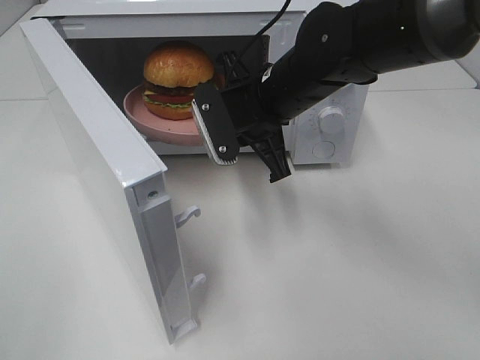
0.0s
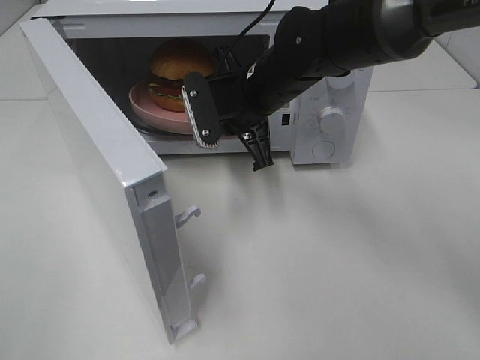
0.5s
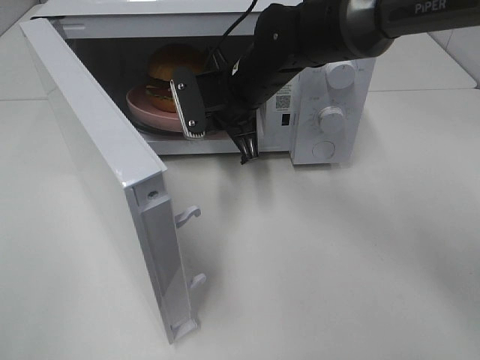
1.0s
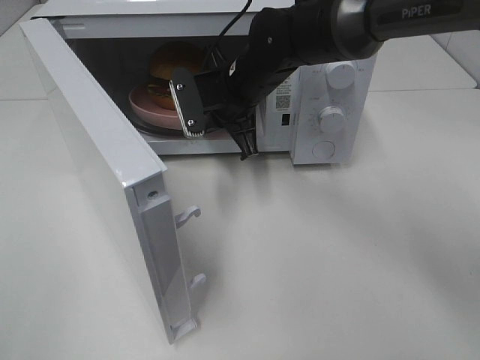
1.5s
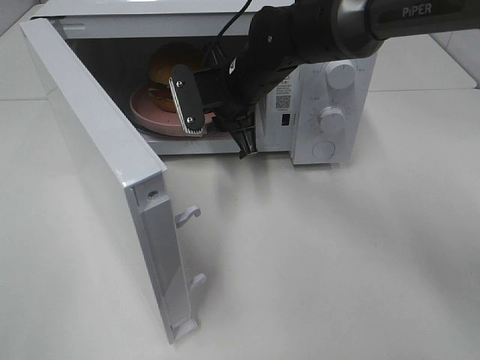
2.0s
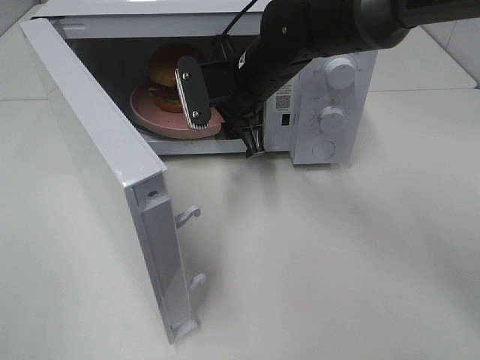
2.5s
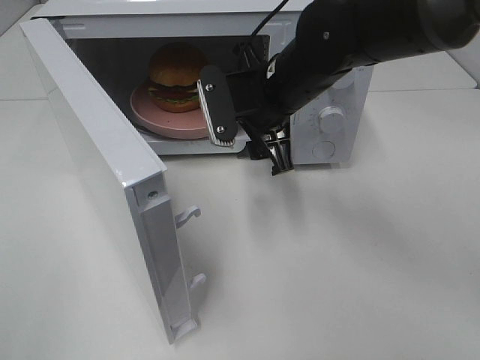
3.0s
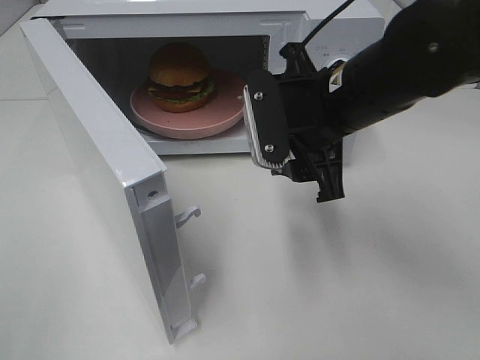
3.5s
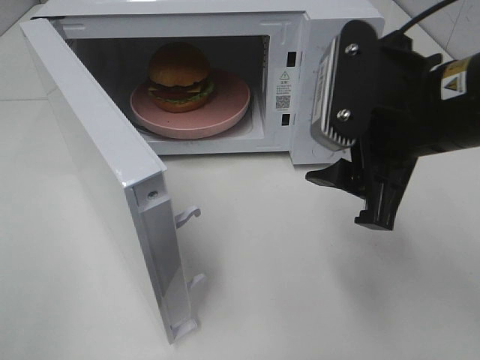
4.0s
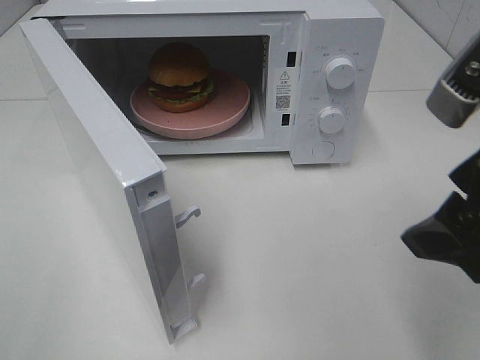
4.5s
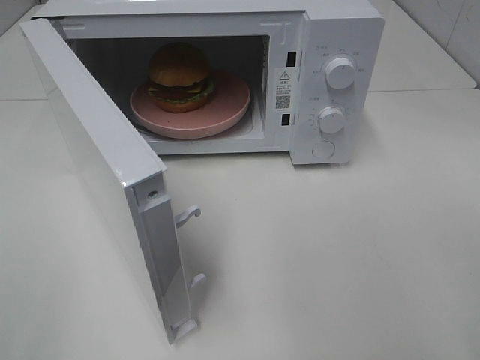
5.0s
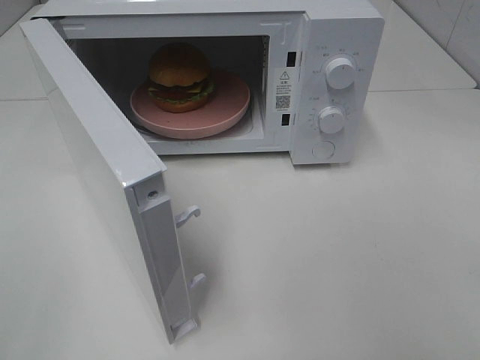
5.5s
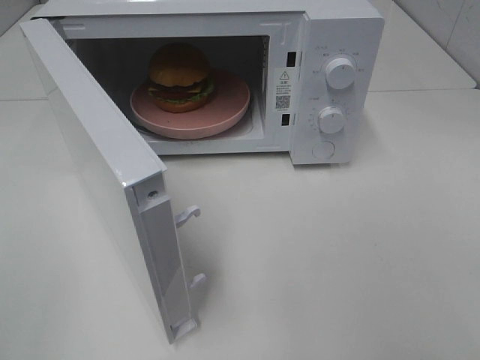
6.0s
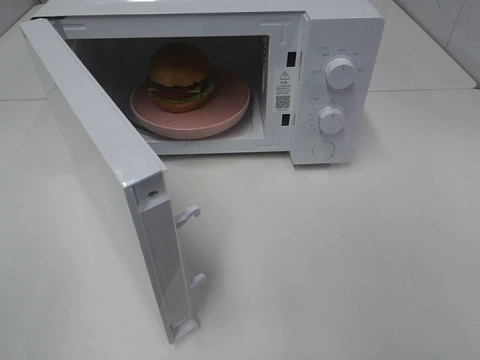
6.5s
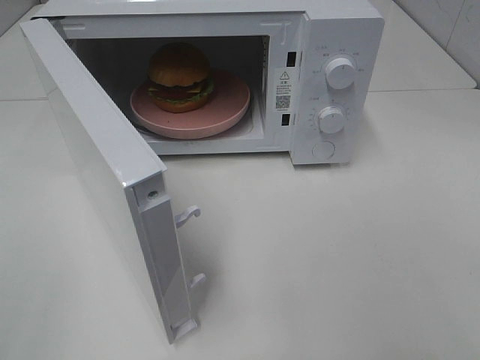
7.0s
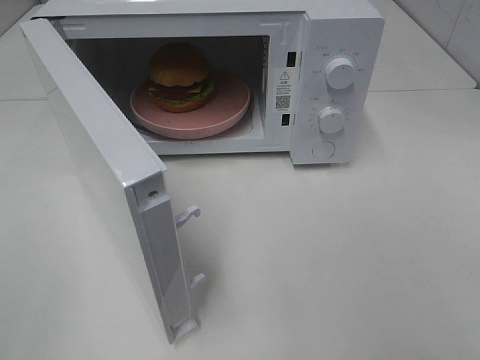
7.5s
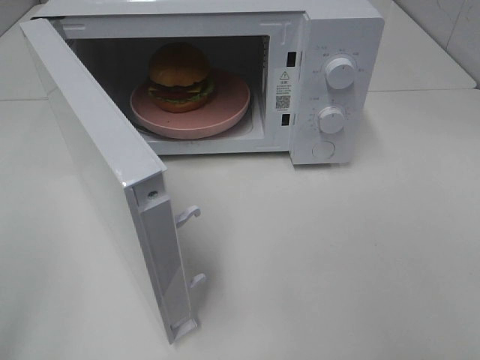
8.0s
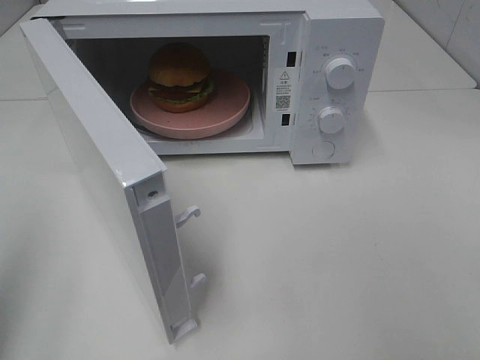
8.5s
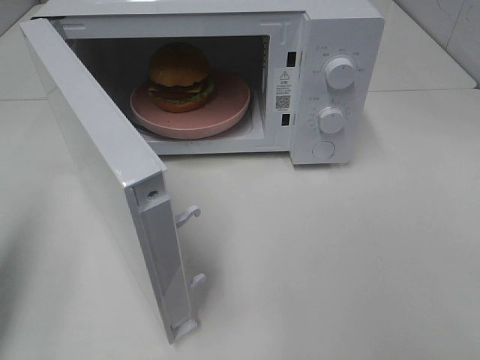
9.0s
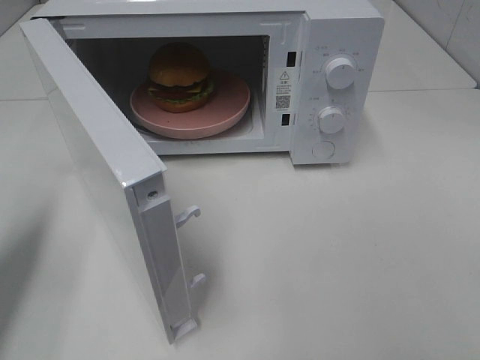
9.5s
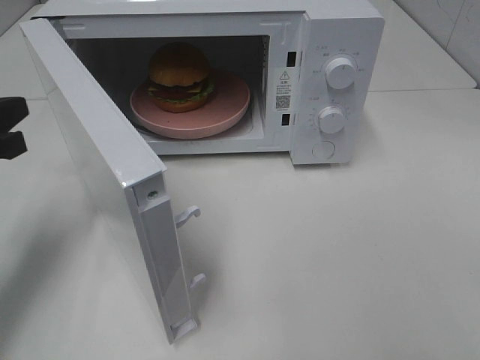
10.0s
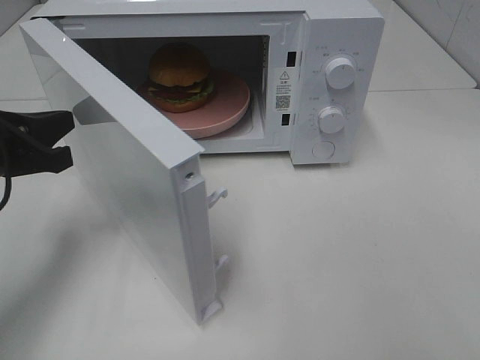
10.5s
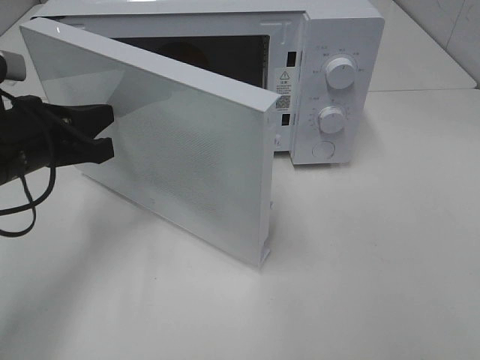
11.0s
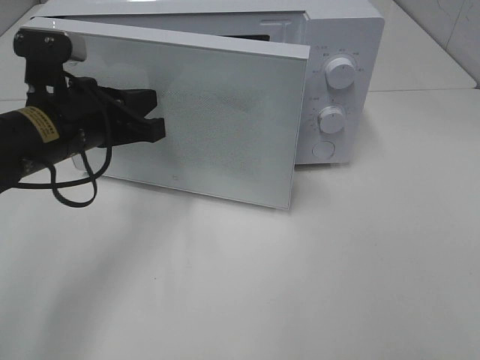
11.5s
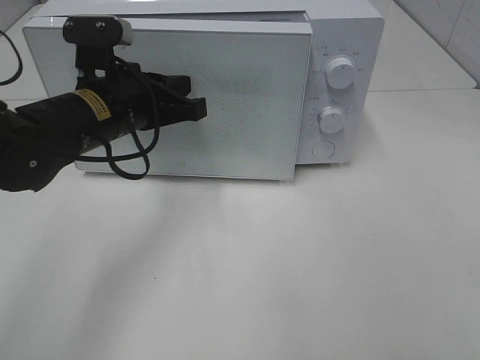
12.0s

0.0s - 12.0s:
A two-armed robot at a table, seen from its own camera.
Task of the whole recording: Heat the burger.
Step, 0.0s - 2.0s: Right hand: place the plate in the microwave.
0.0s - 2.0s: The right gripper moves forward, about 5 cm.
2.0s - 4.0s: The right gripper travels backward, to the right and upward by about 25 cm, and opens up.
4.0s - 6.0s: The right gripper goes some 25 cm backward and to the right.
8.0s - 10.0s: The left gripper moves forward and downward, roughly 25 cm, and closes its fingers.
10.0s - 12.0s: The left gripper goes roughly 15 cm to the right and forward.

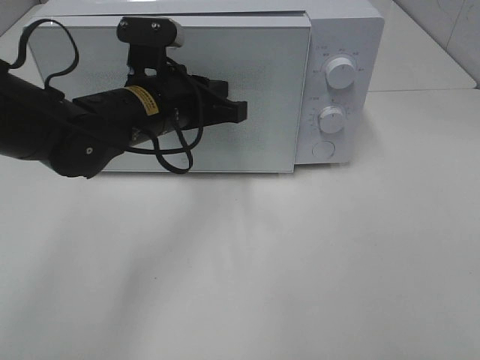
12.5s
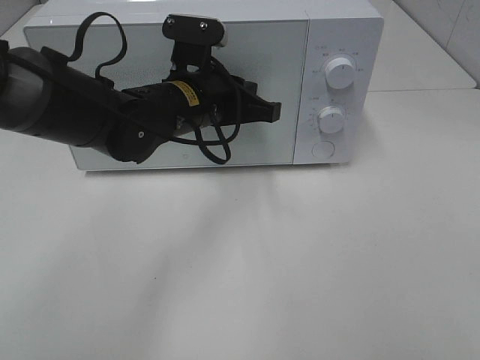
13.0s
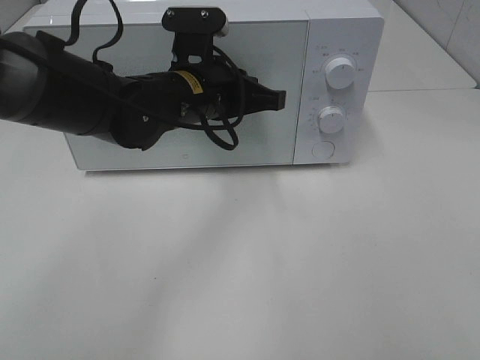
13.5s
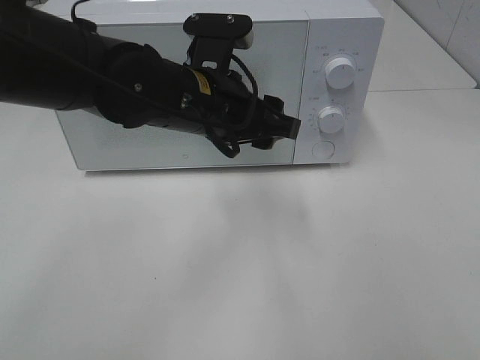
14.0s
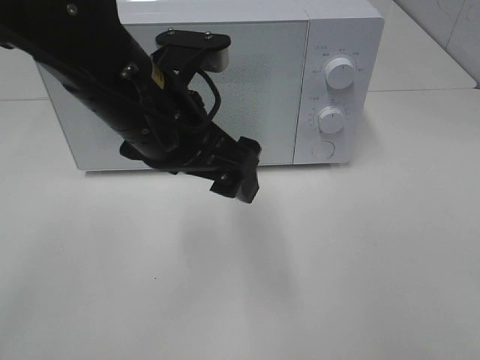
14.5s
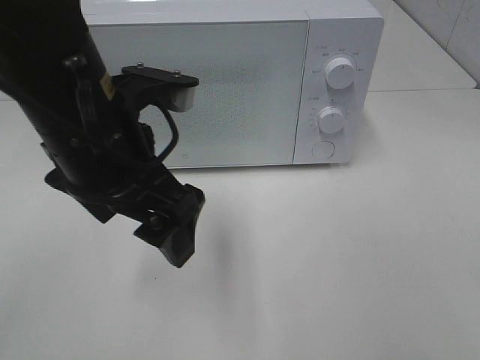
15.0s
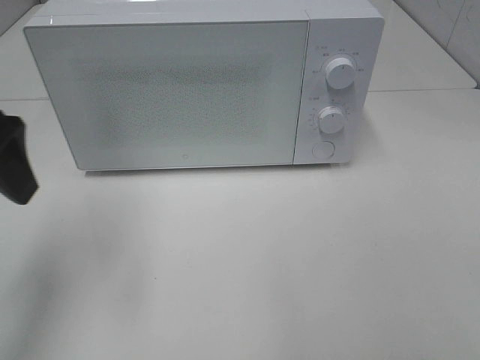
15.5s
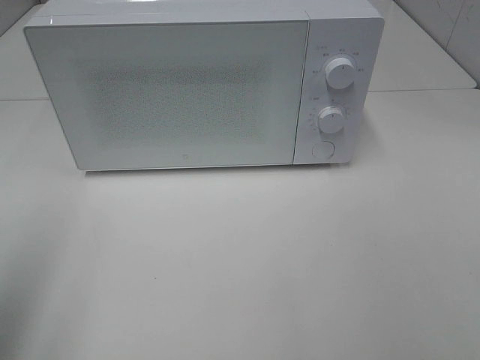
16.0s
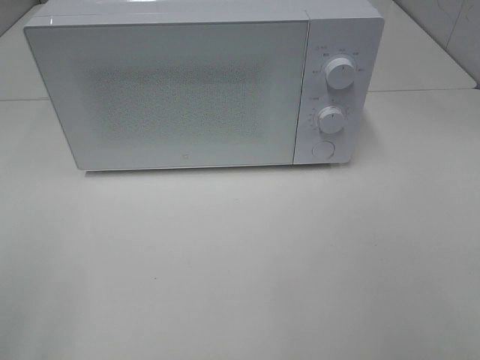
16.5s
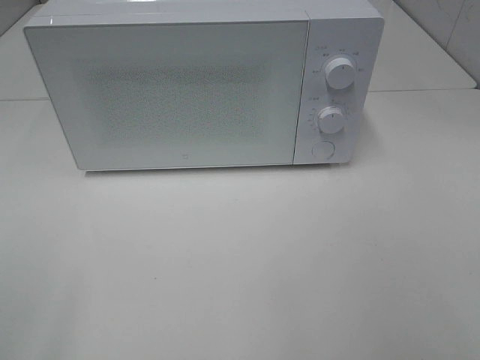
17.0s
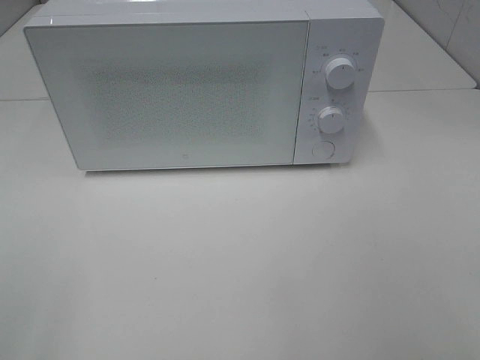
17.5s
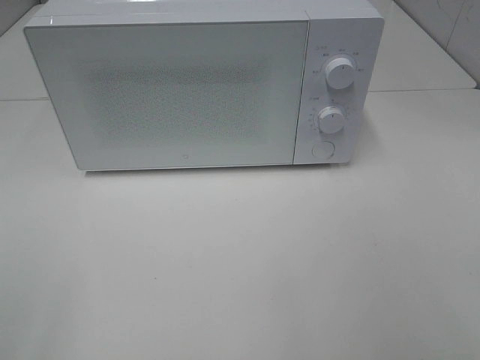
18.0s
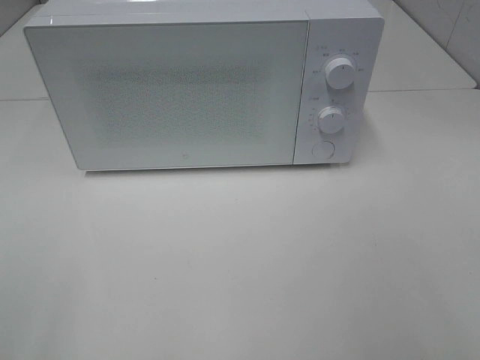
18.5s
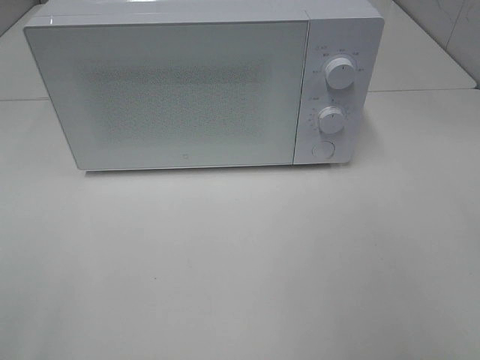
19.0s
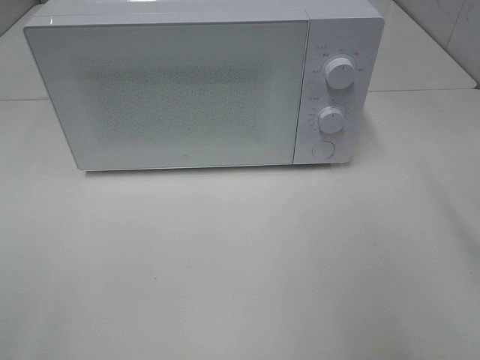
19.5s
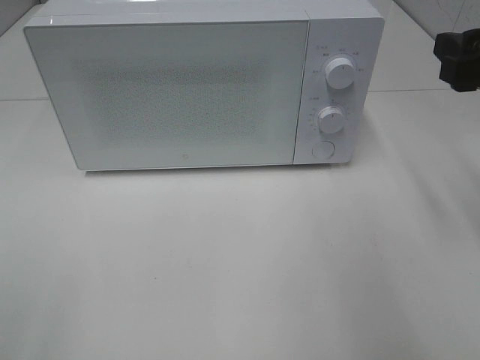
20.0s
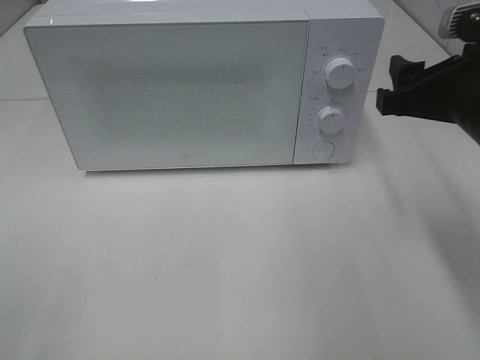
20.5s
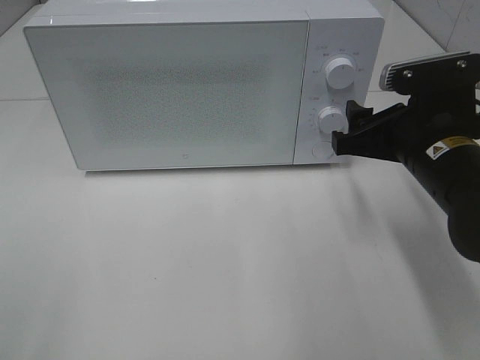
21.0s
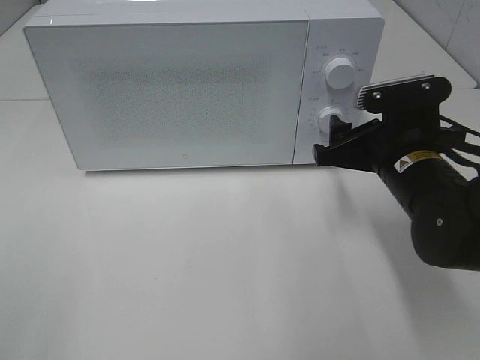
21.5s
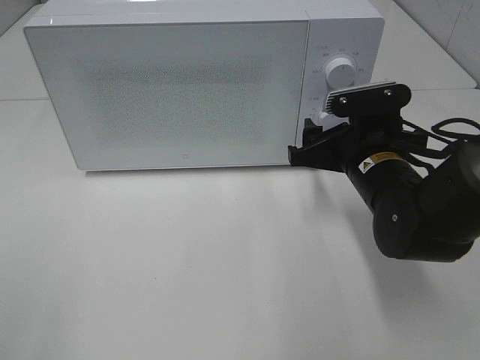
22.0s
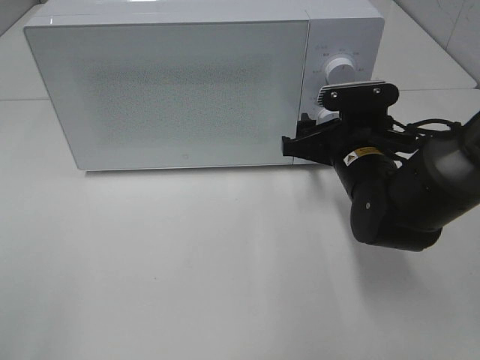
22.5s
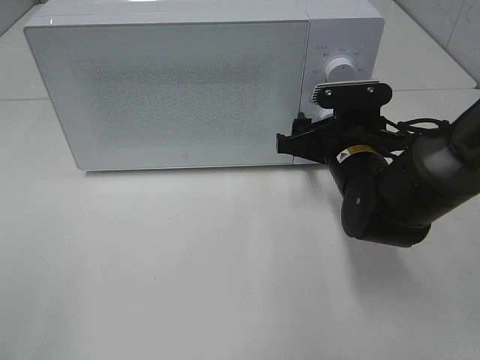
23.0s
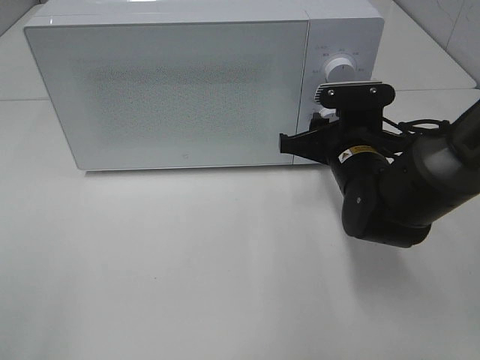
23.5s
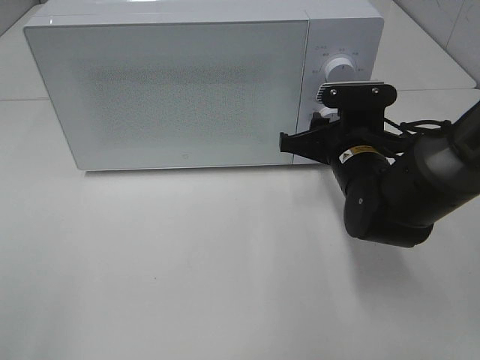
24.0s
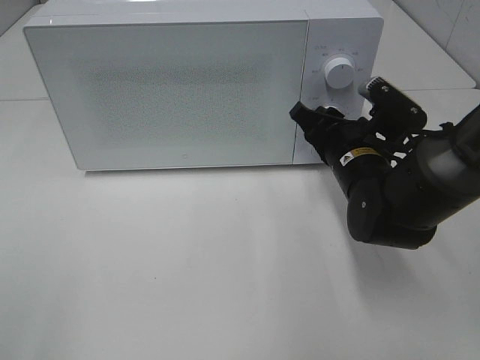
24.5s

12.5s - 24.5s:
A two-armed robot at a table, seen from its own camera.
Task of the whole recording: Heat the burger.
12.5s - 14.5s: The left gripper travels backward and upward by some 10 cm, and opens.
14.5s - 16.5s: The left gripper shifts some 35 cm to the left and backward.
18.5s - 20.5s: The right gripper shifts about 20 cm forward.
20.5s - 22.5s: The right gripper is displaced downward, to the left and forward by some 15 cm.
22.5s - 24.5s: The right gripper closes up.

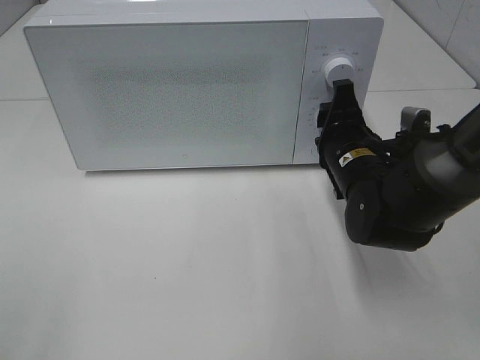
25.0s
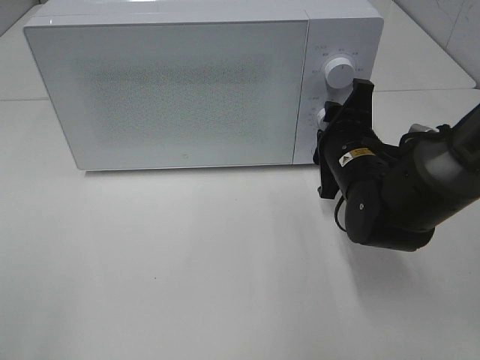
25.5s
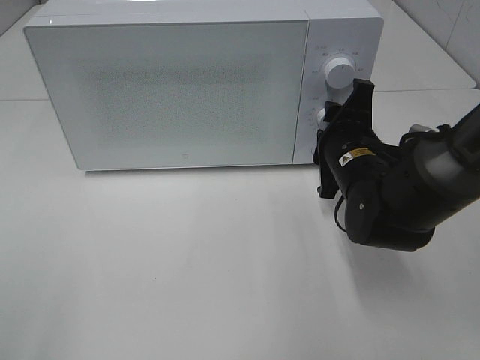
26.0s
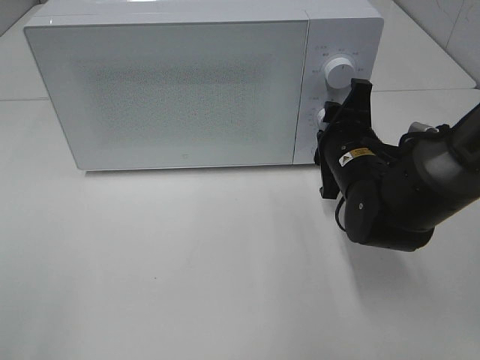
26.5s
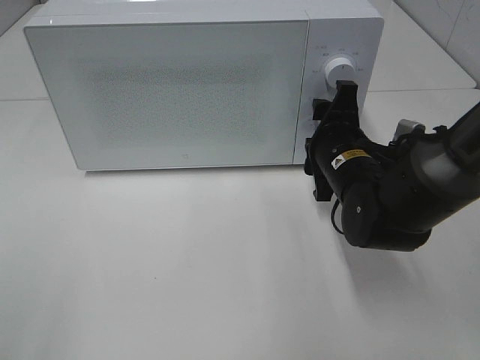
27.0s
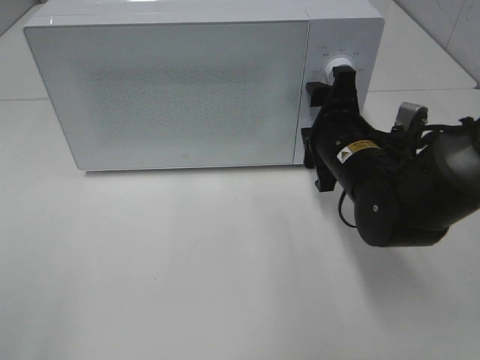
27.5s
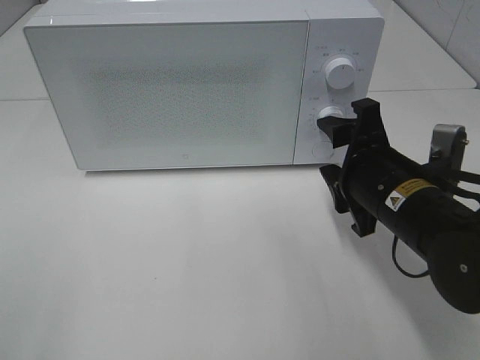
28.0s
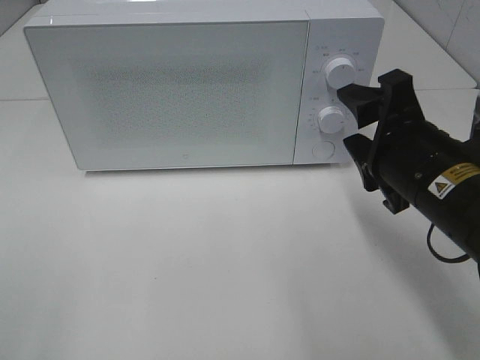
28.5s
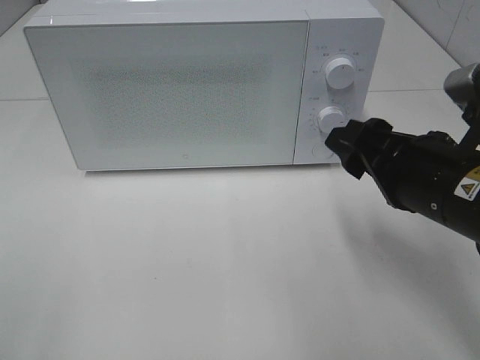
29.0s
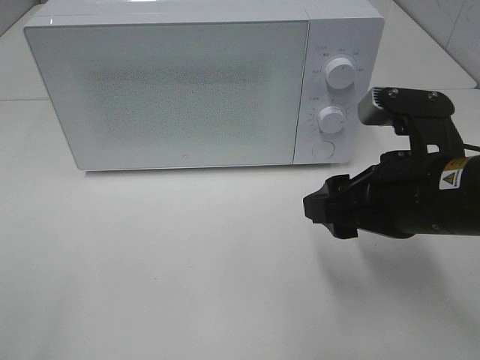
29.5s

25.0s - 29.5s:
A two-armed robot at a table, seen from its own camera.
Task of the whole recording: Heat the burger.
25.0s - 27.0s: The grippers stay close to where they were, moving slightly.
27.0s - 29.5s: The right gripper is displaced backward and upward by roughly 15 cm.
